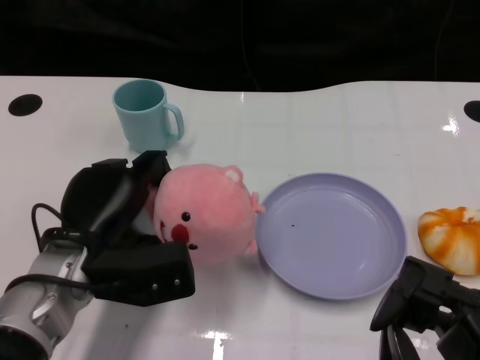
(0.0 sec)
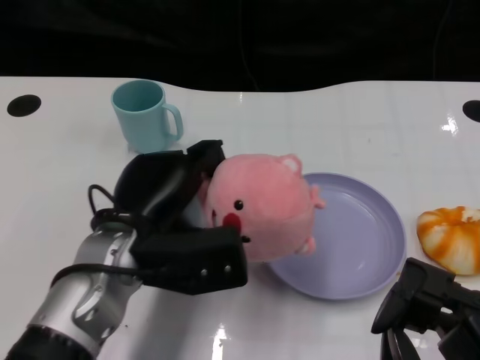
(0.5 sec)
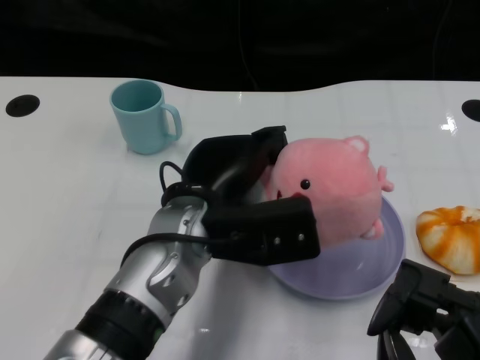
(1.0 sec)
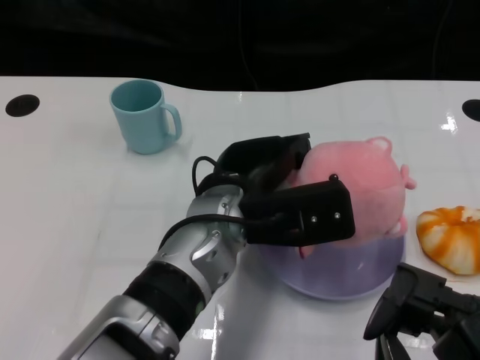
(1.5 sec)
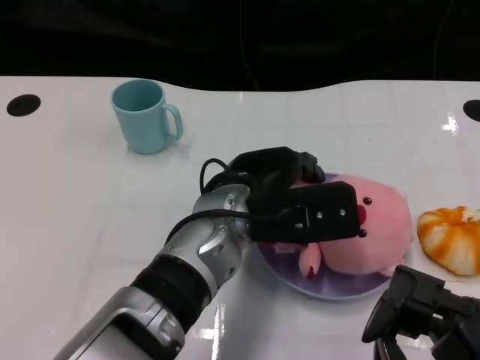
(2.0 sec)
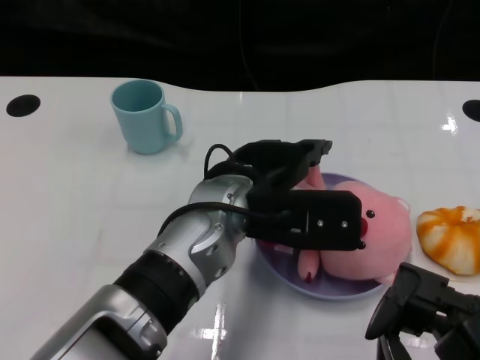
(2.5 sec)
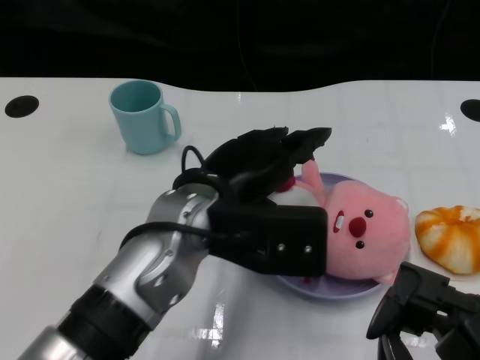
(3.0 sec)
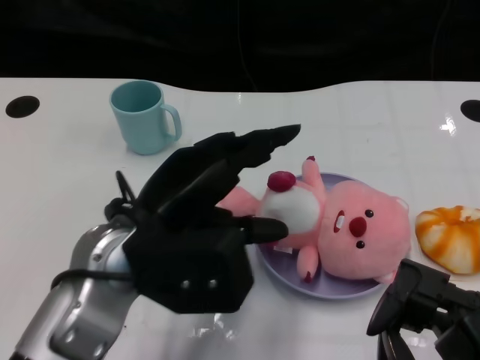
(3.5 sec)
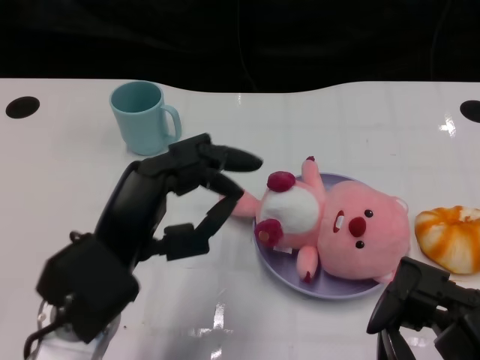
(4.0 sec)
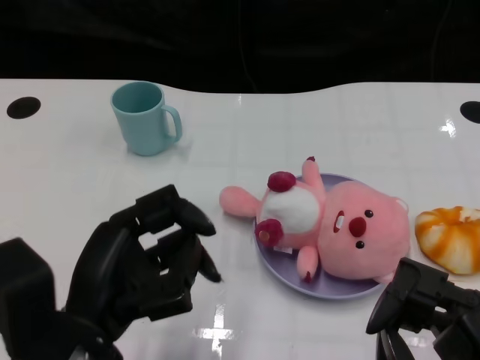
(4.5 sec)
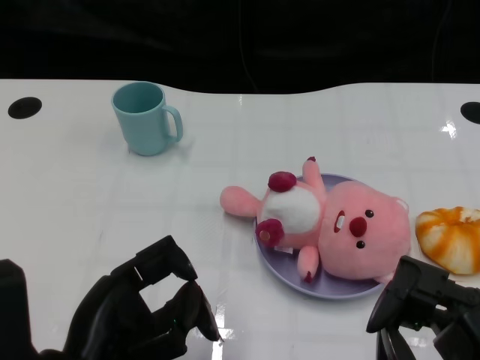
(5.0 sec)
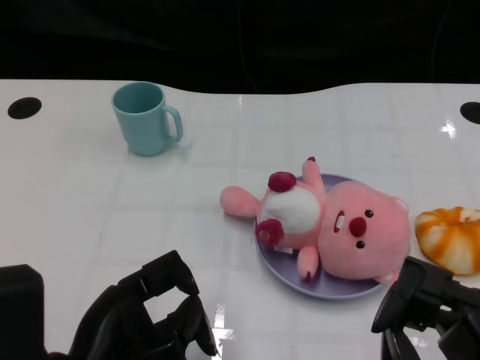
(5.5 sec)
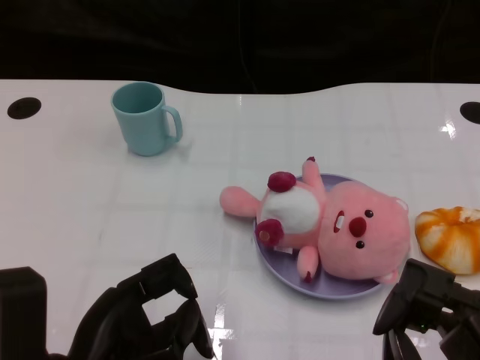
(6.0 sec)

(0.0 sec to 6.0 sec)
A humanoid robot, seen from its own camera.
Task of the whole recording: Pick up the doll on one side of the plate and place it into the plate.
Step, 0.0 sec - 2.5 sec: Place the pink doll into the plate with the left gripper.
0.0 sec - 2.0 sec: The left hand goes about 15 cm to the right.
2.0 sec - 4.0 sec: The left hand shifts approximately 15 cm to the left and backward.
4.0 sec - 6.0 sec: The left hand shifts approximately 5 cm backward.

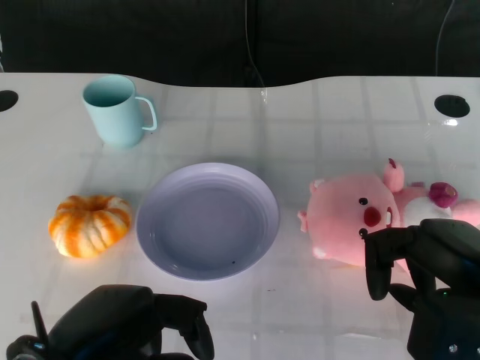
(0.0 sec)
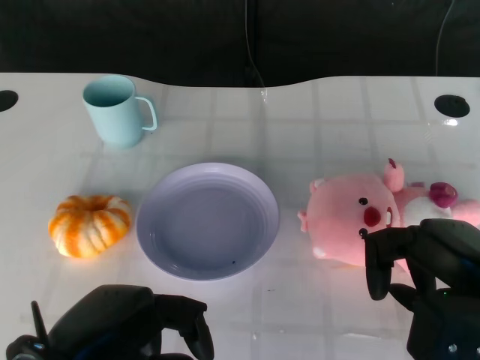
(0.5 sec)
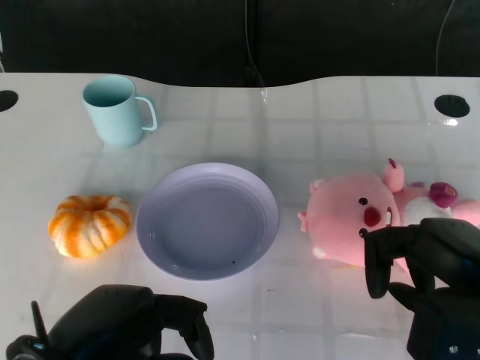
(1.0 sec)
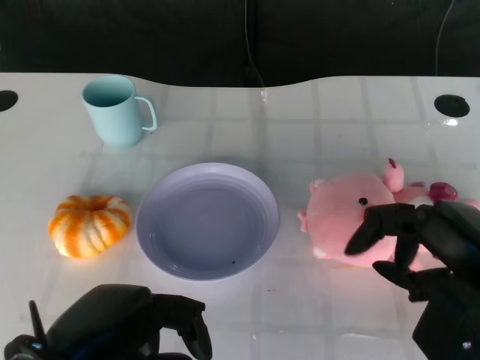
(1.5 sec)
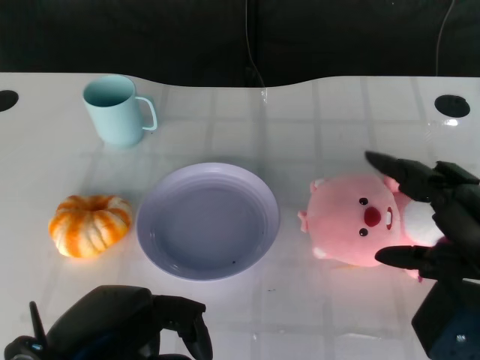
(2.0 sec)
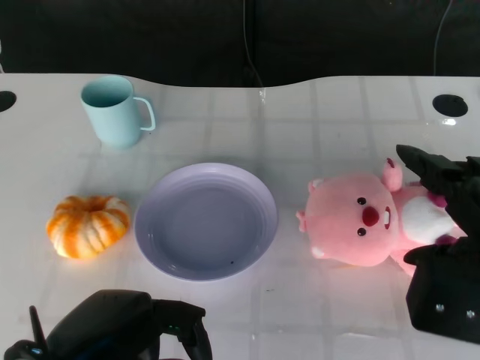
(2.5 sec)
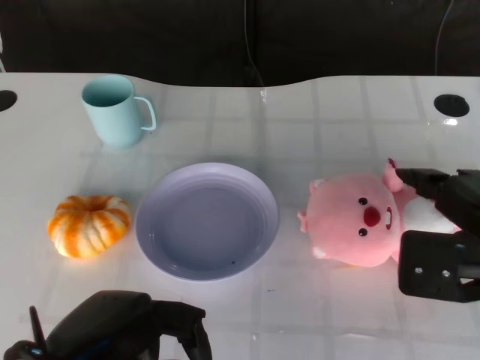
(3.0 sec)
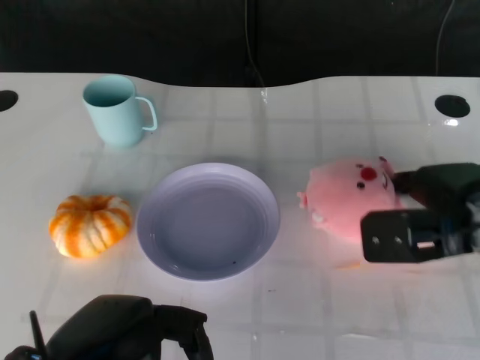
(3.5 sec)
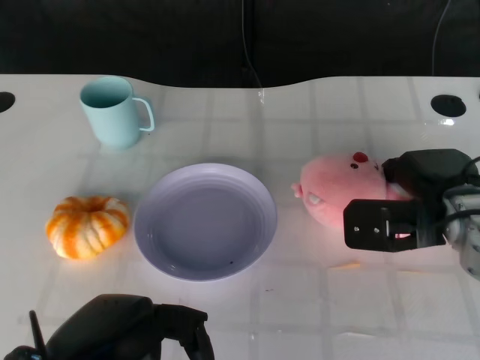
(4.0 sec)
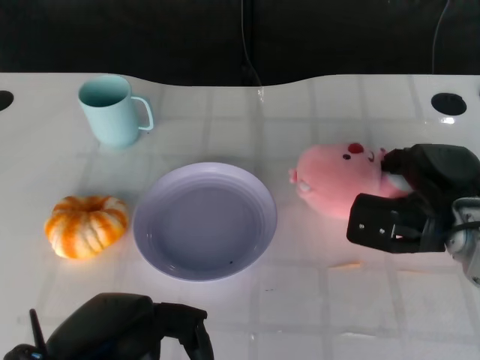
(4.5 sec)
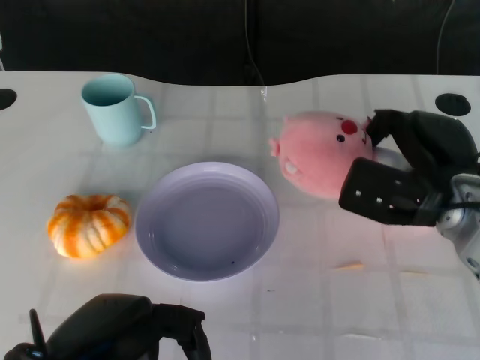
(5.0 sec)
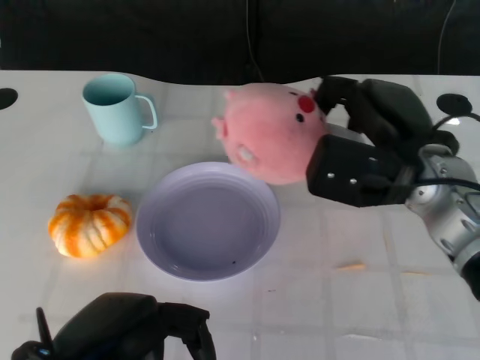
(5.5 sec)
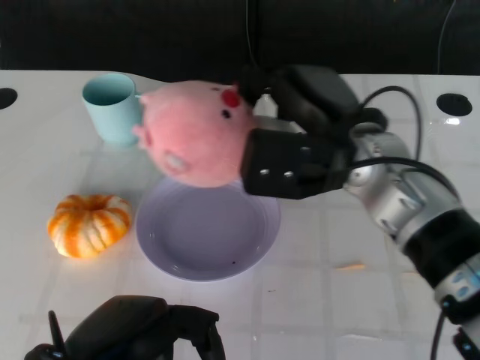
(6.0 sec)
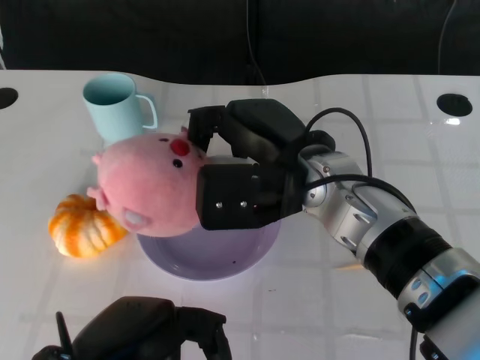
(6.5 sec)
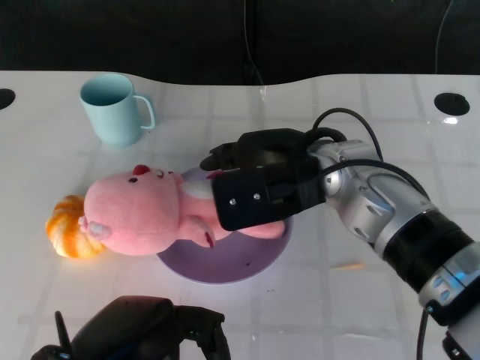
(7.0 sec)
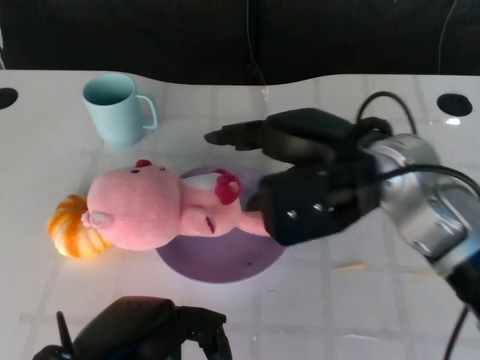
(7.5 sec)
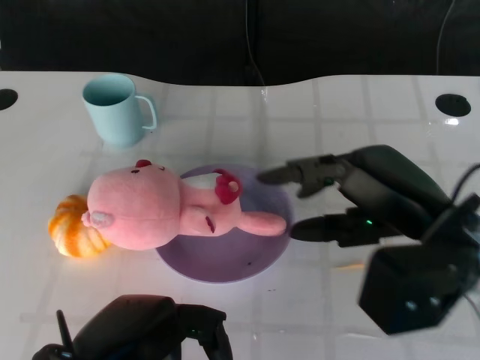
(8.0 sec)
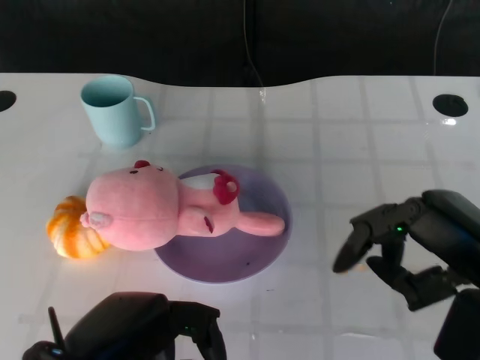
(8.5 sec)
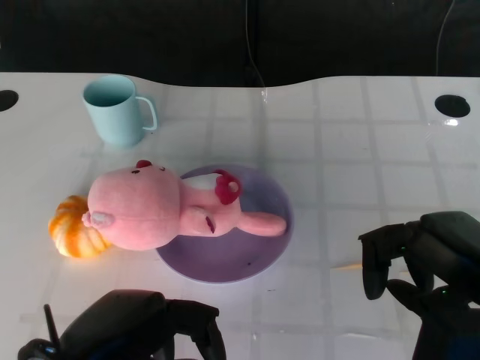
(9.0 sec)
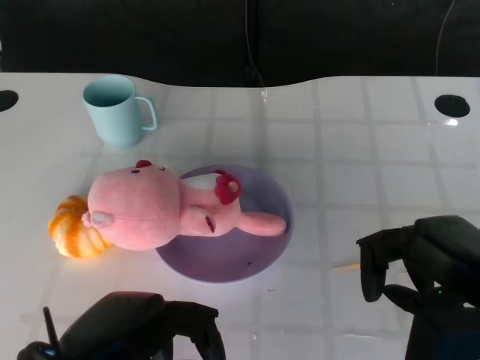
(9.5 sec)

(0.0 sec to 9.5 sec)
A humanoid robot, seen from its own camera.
Task of the whole recording: Pick up the doll on the other side of the plate and place it into the plate.
Step, 1.5 sec - 5.0 sec: Grasp the pink doll with the right gripper.
Step, 5.5 sec - 7.5 sec: Place the pink doll into the plate with the right gripper.
2.0 sec - 4.0 sec: The right hand goes about 15 cm forward and downward.
4.0 sec - 5.5 sec: The right hand travels upward by about 5 cm.
5.5 sec - 7.5 sec: The right hand shifts by roughly 5 cm.
7.5 sec - 9.5 sec: The right hand shifts about 15 cm to the right, backward and downward.

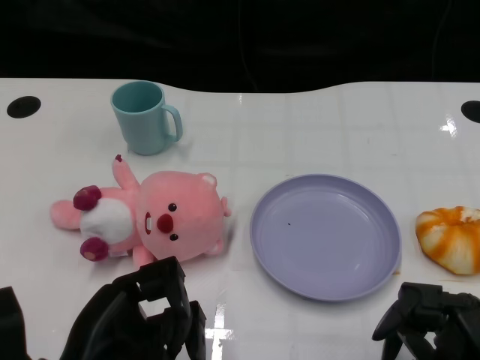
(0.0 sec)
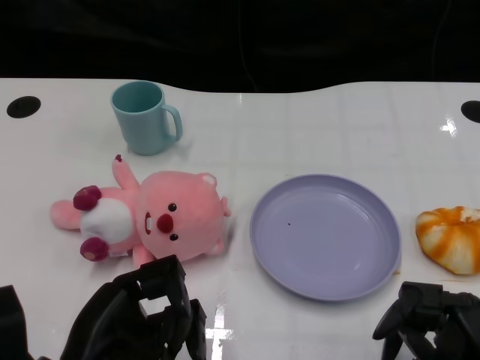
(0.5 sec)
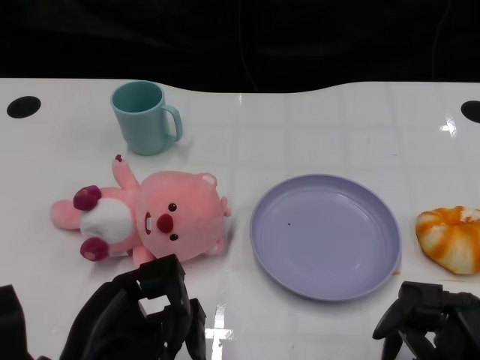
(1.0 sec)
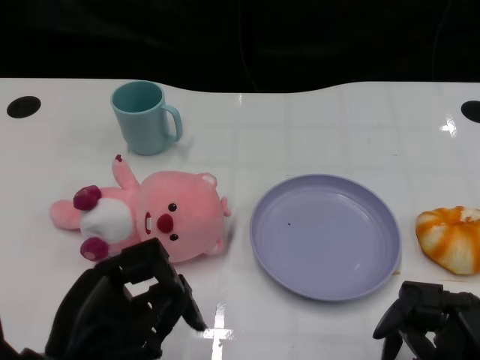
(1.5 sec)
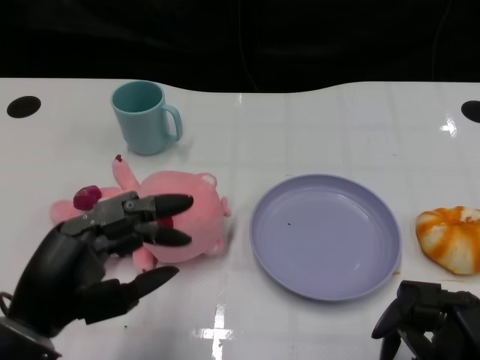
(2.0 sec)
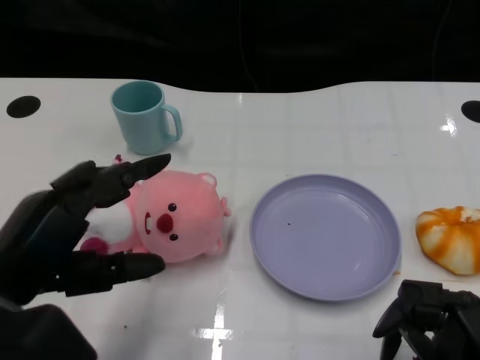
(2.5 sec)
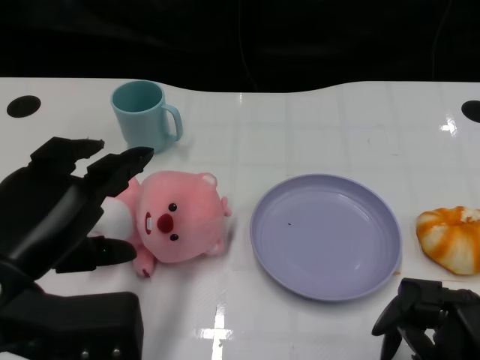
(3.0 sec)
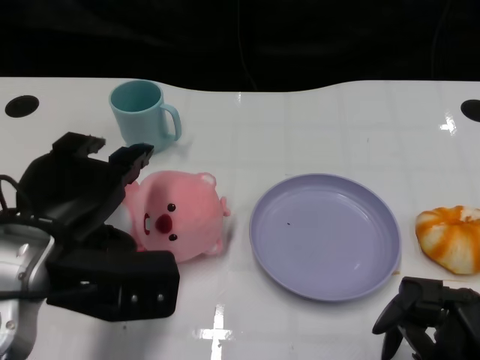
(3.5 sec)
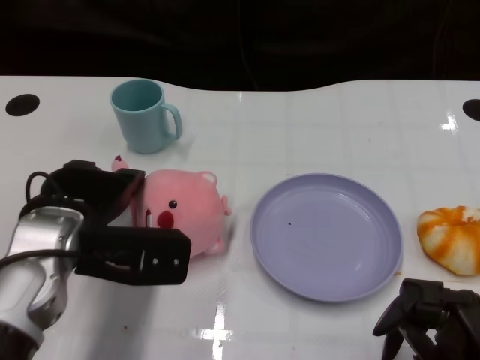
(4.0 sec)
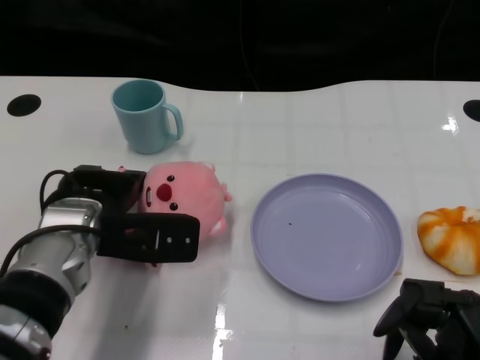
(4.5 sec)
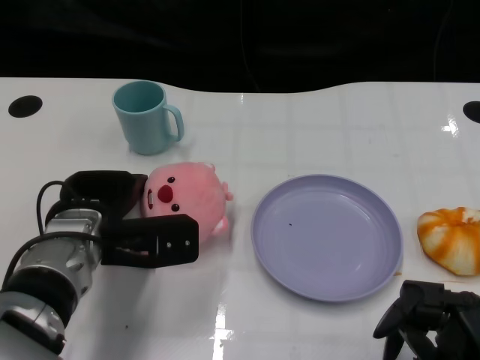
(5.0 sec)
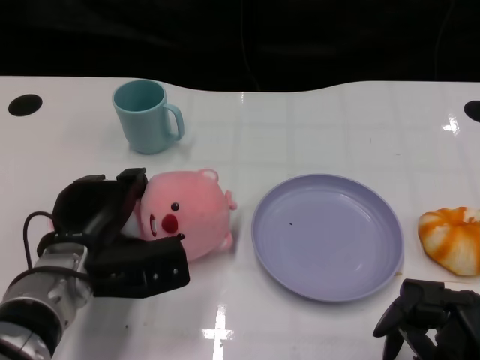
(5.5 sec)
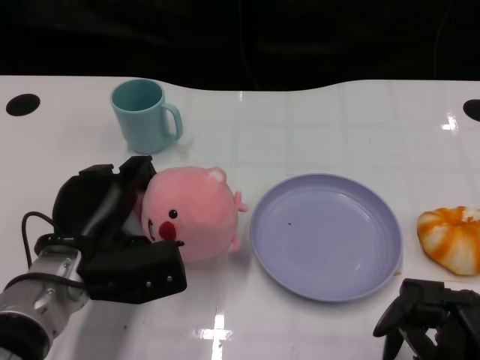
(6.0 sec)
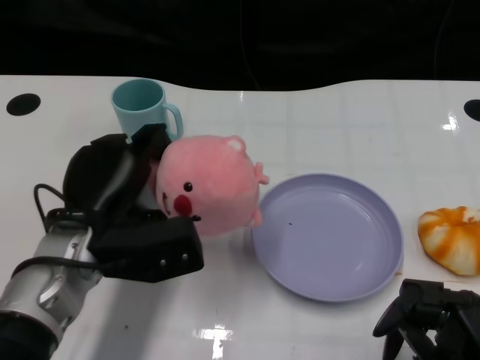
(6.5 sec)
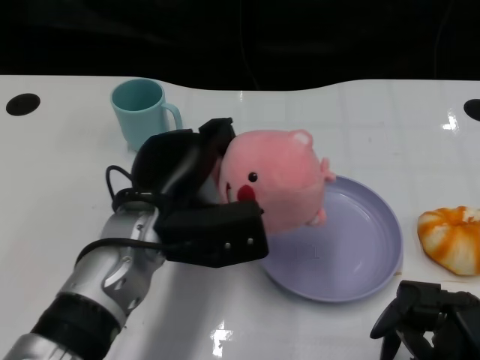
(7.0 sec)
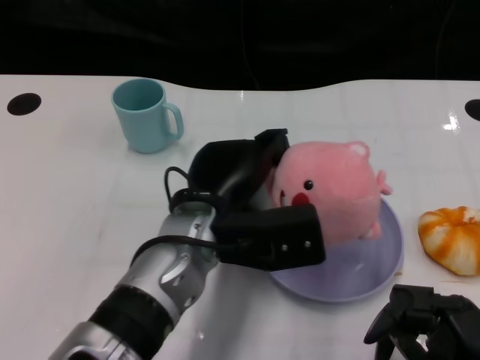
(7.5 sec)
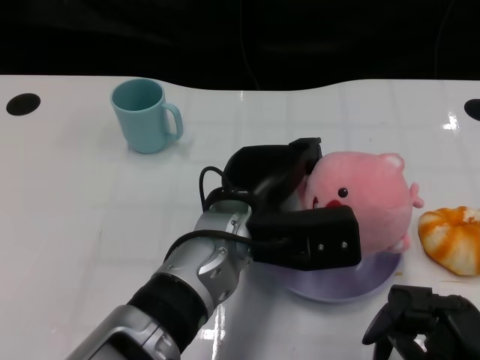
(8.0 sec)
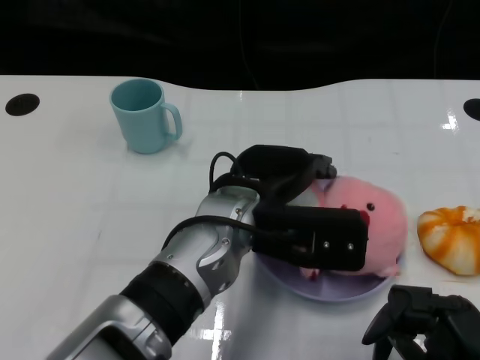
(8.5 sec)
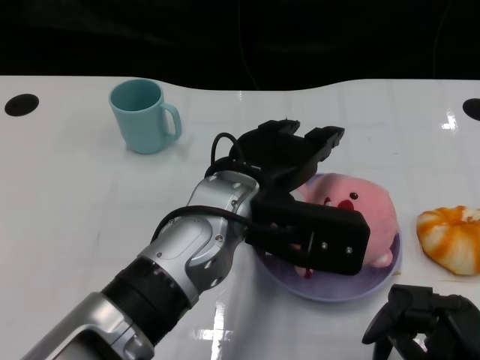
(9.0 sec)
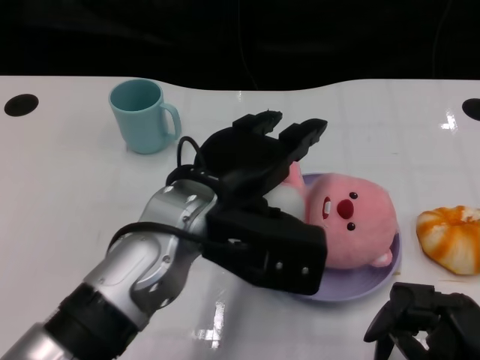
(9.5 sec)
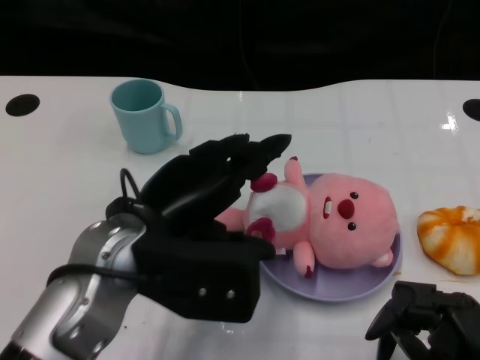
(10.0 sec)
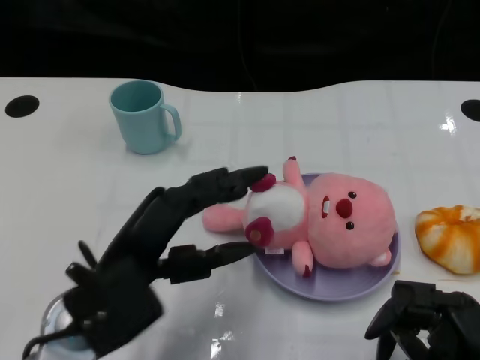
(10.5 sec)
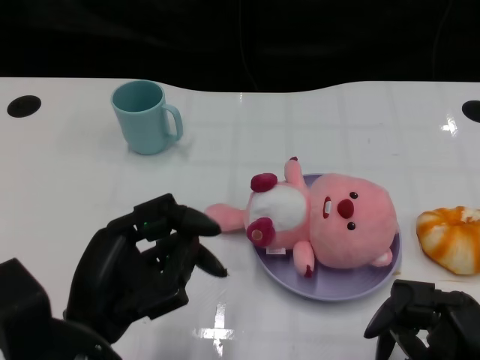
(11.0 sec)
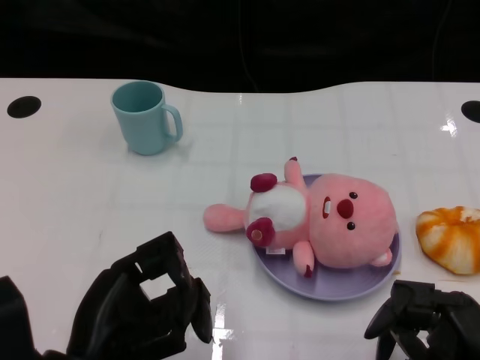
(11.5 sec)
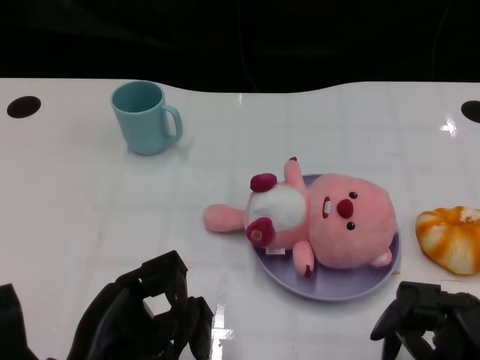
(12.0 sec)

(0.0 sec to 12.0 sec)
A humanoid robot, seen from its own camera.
Task of the whole recording: Pick up the doll on one side of the plate and place it into the plate.
Step, 1.0 sec - 5.5 sec: Grasp the pink doll with the left gripper.
Step, 6.5 sec - 9.0 sec: Place the pink doll into the plate with the left gripper.
2.0 sec - 4.0 sec: The left hand is displaced forward by roughly 10 cm.
4.0 sec - 6.0 sec: The left hand is displaced downward by some 5 cm.
6.0 sec - 8.0 sec: The left hand shifts roughly 15 cm to the right.
8.0 sec - 10.0 sec: The left hand is displaced to the left by roughly 10 cm.
10.0 sec - 12.0 sec: The left hand travels backward, downward and to the left by some 15 cm.
